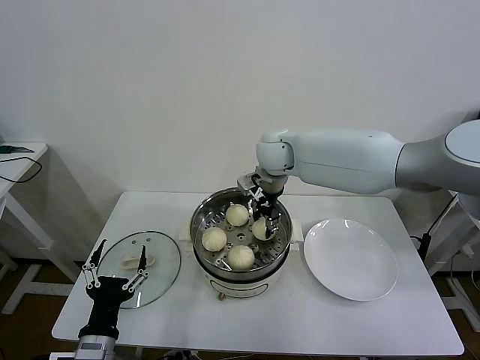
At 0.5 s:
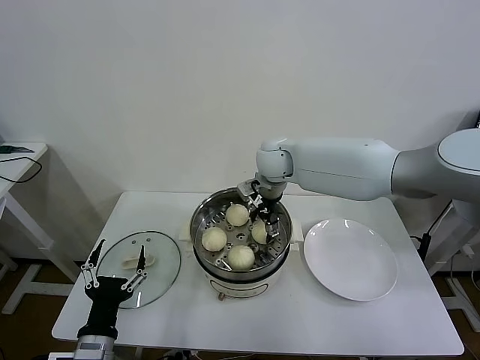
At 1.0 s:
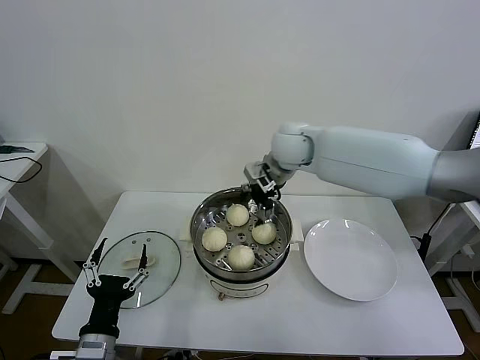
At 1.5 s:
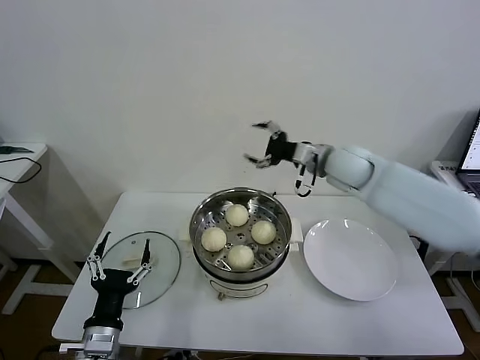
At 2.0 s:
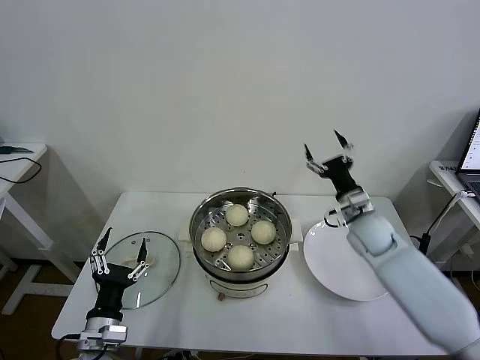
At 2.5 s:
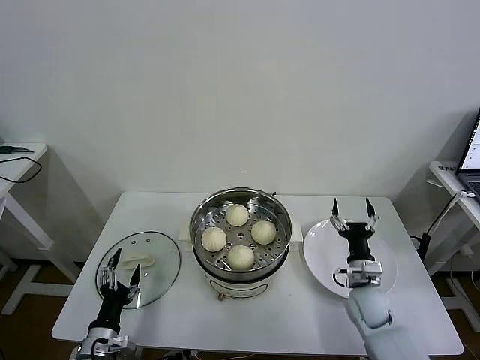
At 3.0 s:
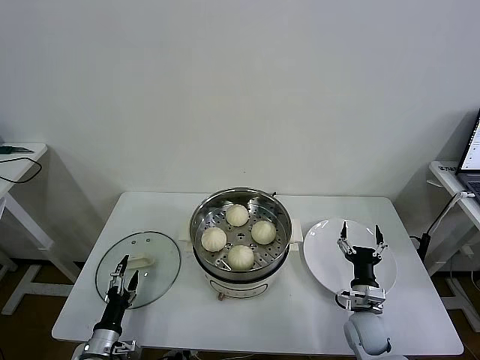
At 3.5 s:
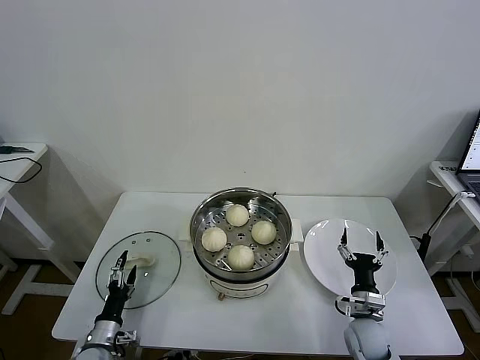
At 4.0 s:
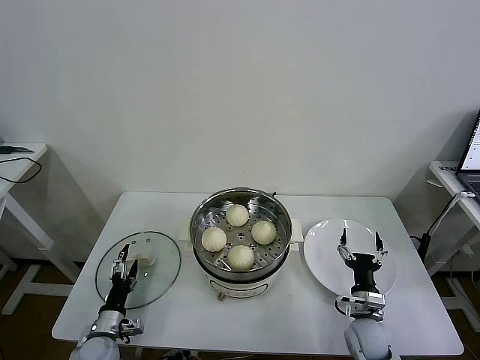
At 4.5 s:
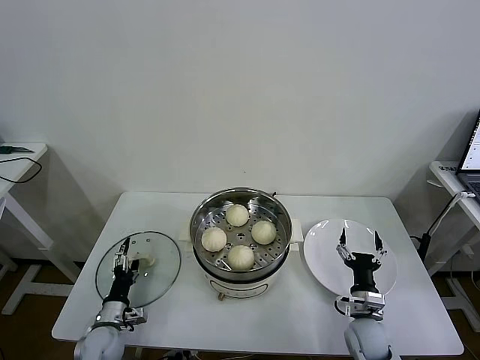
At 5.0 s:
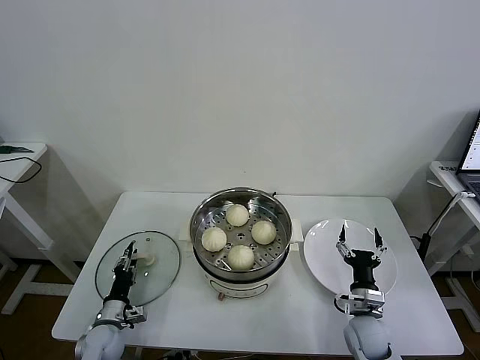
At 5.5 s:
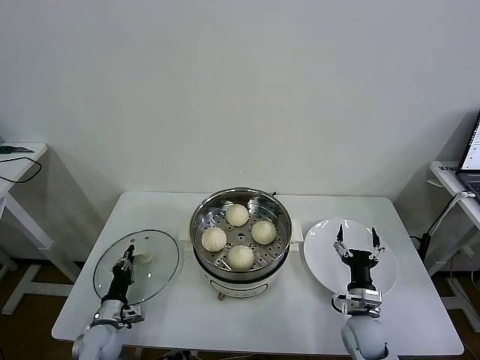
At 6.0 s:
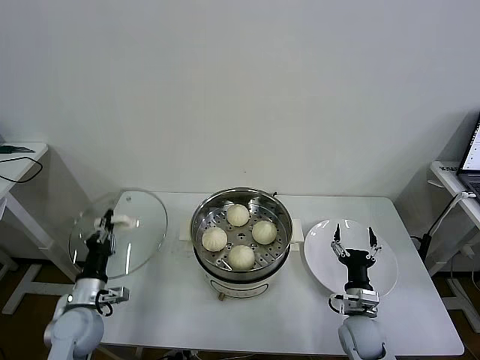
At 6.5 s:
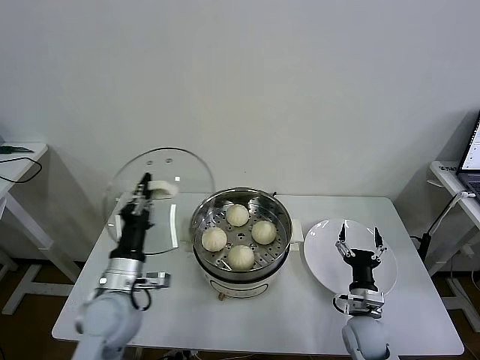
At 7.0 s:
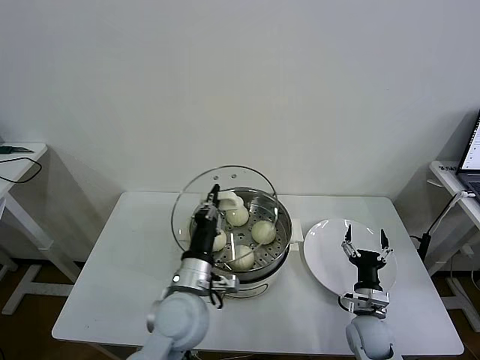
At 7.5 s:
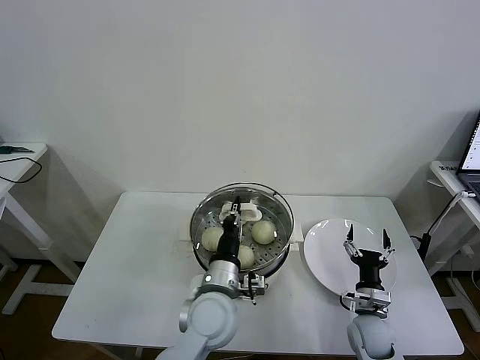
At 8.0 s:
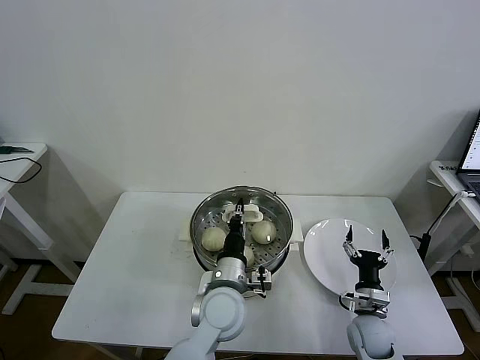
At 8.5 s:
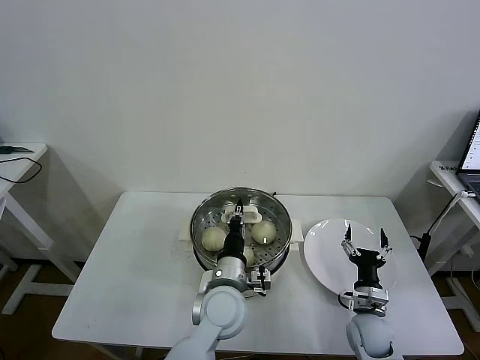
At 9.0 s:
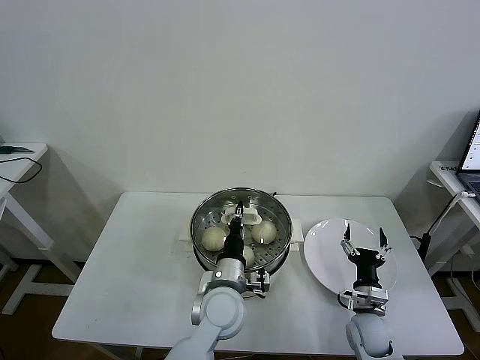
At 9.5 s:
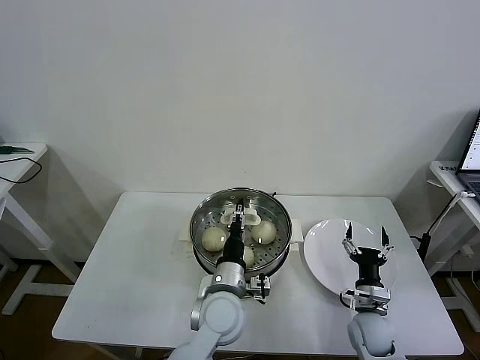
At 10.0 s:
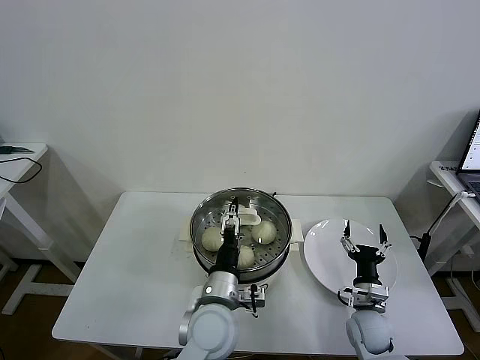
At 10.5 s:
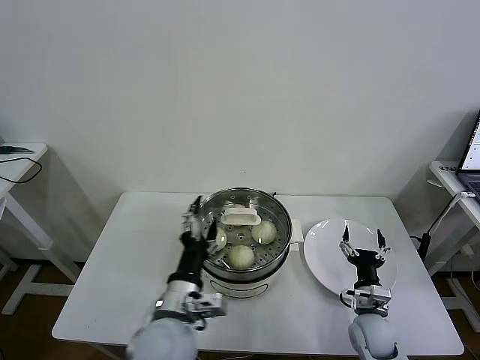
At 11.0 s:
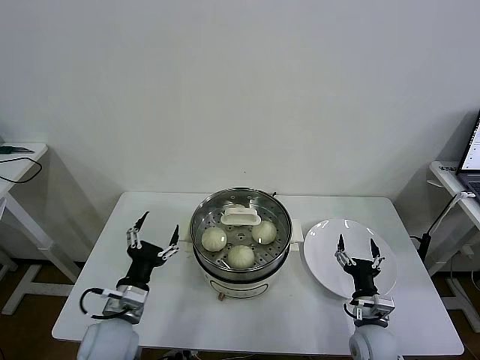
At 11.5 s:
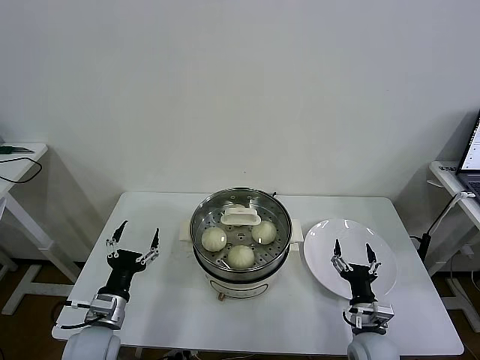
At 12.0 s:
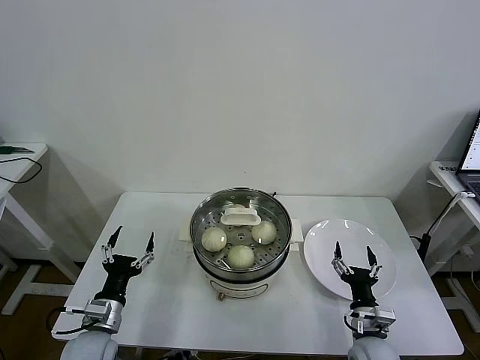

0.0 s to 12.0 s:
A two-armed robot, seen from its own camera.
Task of the whole recording: take steamed baozi put them in steamer then cover it.
Step, 1.0 to 5.5 s: Grasp the pot lid with left gripper.
Step, 6.0 to 9.0 s: Place the pot lid on the steamer with left gripper.
0.0 to 2.0 s: The right gripper heads to the right, downward and backward, covering roughly 30 cm, and opens its fingers. Meanwhile the left gripper shifts by some 5 cm.
2.0 to 4.0 s: The left gripper moves downward, to the left and forward, some 15 cm, while the right gripper shifts some 25 cm downward and backward.
4.0 to 6.0 s: The left gripper is displaced upward by some 10 cm, and closes.
6.0 to 8.0 s: The left gripper heads to the right, covering roughly 30 cm.
8.0 to 10.0 s: The left gripper opens up.
10.0 to 12.0 s: The right gripper shifts some 5 cm backward, while the left gripper travels to the left by some 25 cm.
